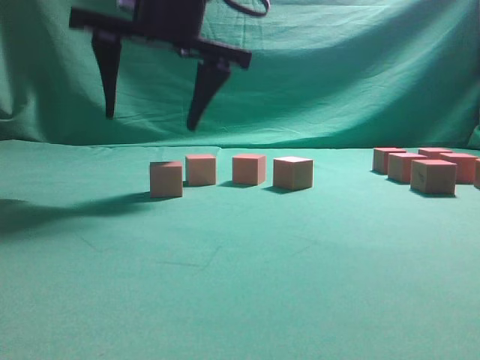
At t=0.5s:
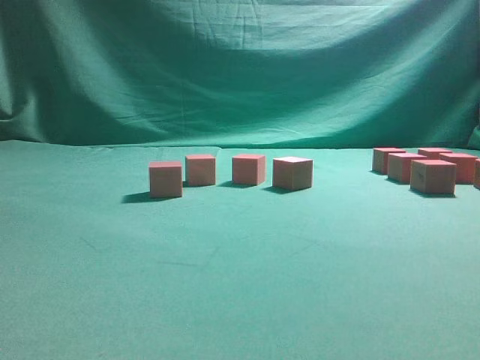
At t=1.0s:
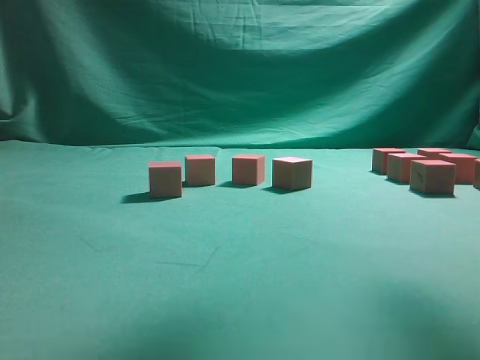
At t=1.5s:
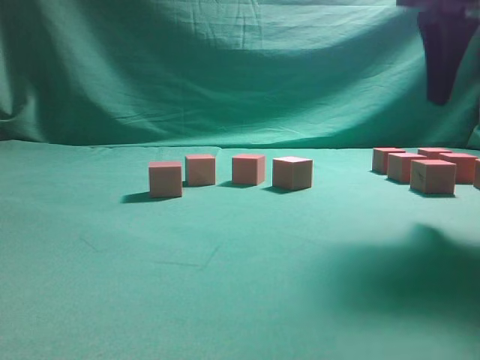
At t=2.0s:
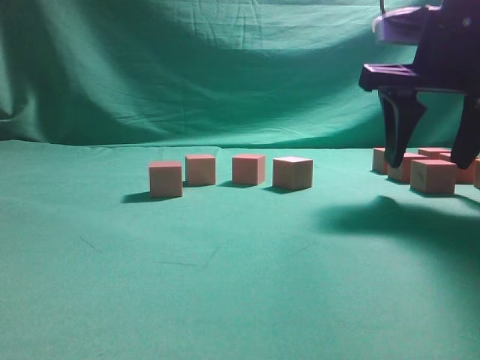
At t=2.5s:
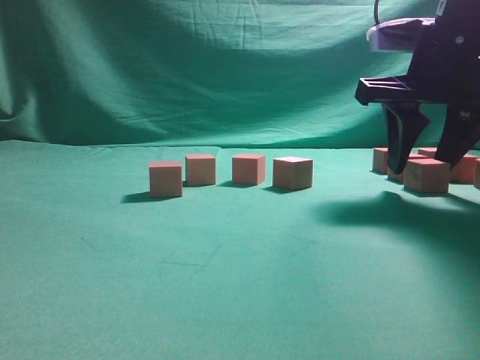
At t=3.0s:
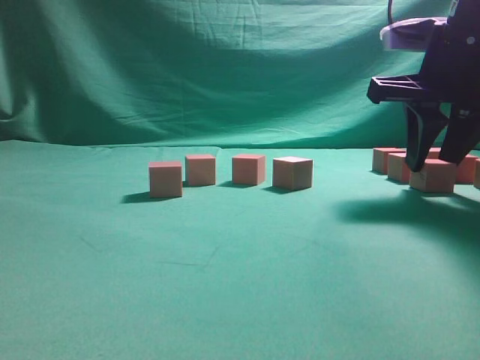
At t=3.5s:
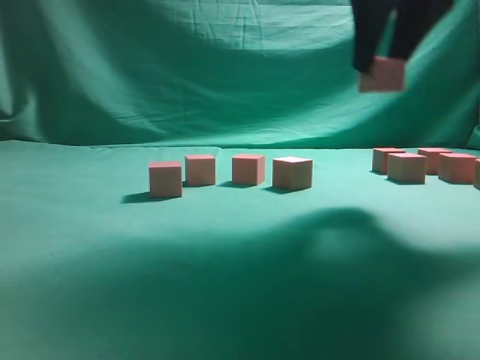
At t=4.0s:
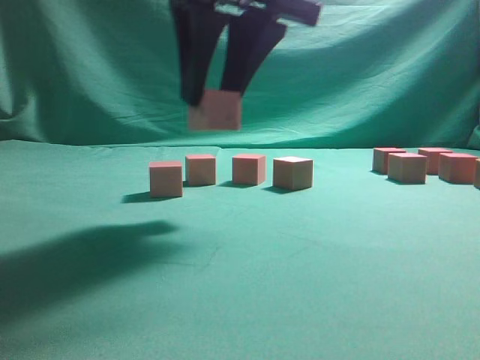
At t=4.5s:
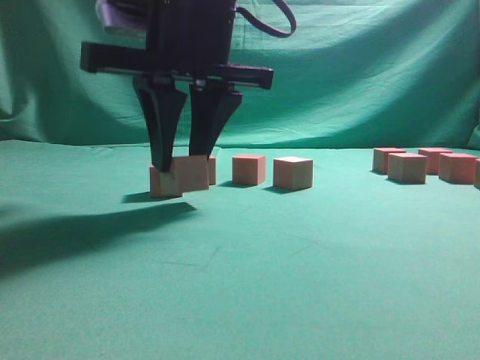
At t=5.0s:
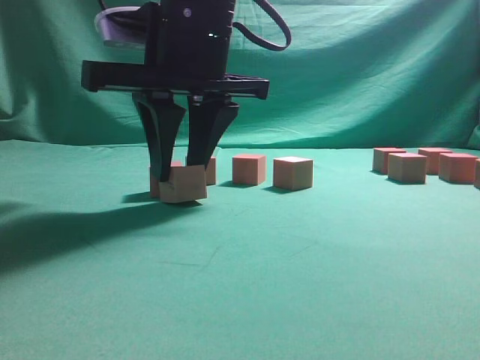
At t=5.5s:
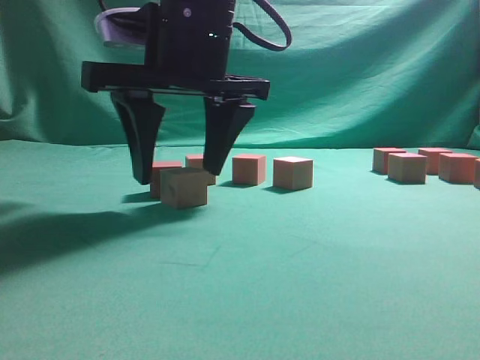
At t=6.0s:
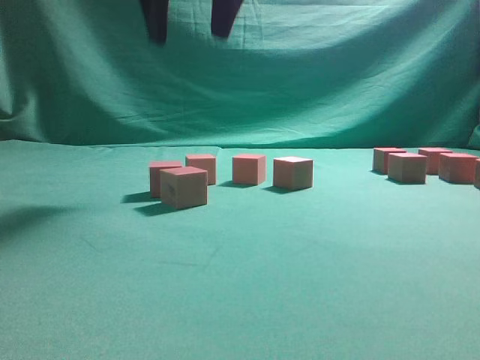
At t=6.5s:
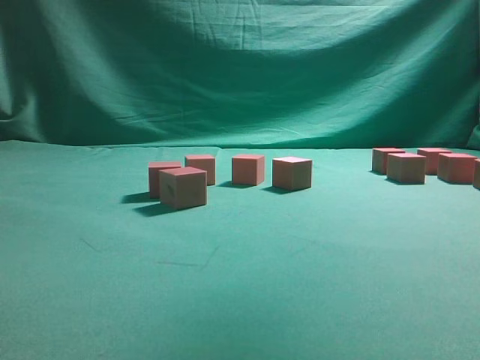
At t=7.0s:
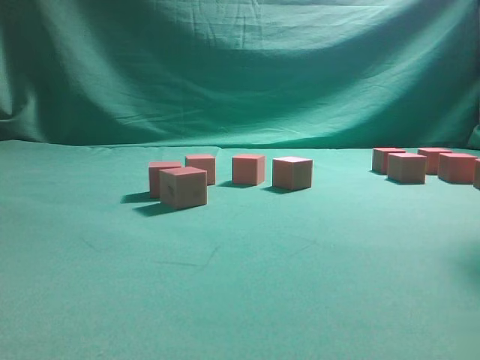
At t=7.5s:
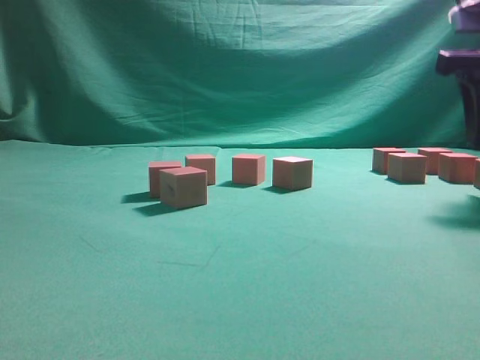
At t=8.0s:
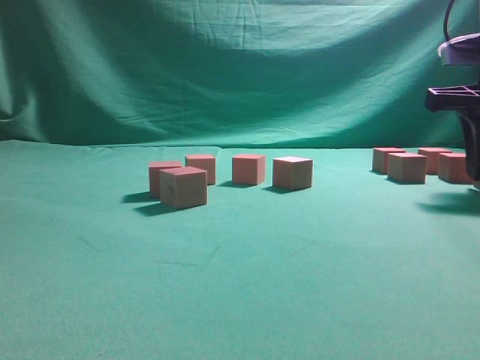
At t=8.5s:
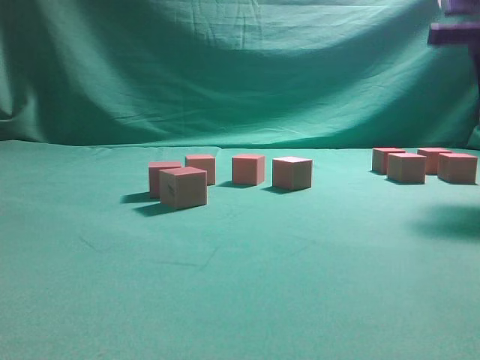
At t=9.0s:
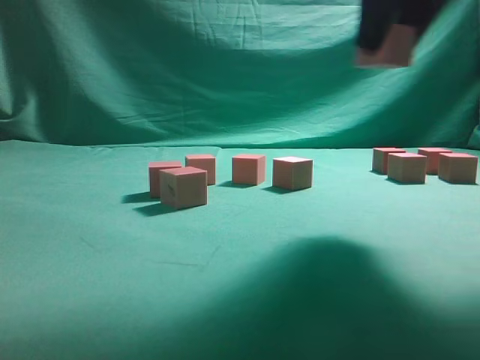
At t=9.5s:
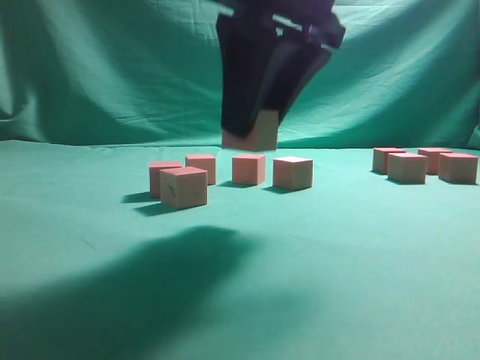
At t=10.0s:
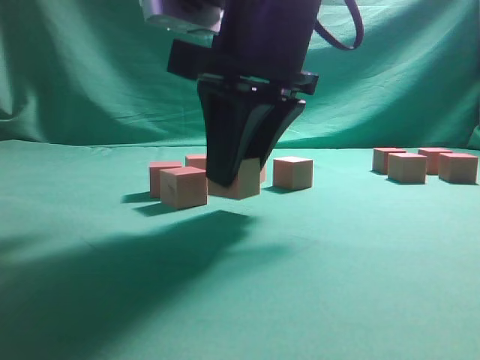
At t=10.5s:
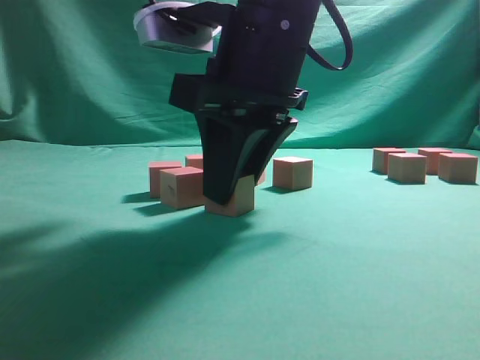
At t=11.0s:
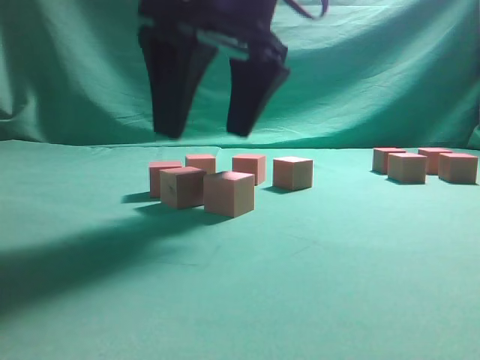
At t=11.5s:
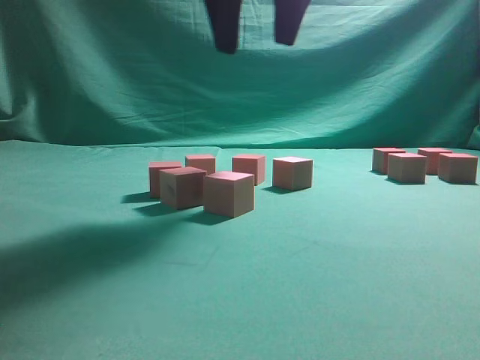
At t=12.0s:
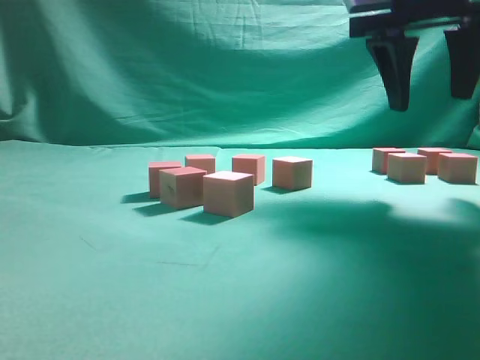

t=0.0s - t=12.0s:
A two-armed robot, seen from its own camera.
Task of the whole recording: pick up the multiple cubes in two columns one by one and place them in another position on the table.
Step, t=0.5s - t=3.0s: Pick up the block on the table.
Step, t=3.5s - t=5.5s: Place the block at the correct position to assemble the letter S.
Step, t=6.0s - t=8.0s: Pick up the block on the table.
Step, t=8.5s - t=11.0s: Place the block at the correct position to assemble the letter S.
t=0.0s - t=2.0s: The right gripper goes some 25 cm to the right.
t=2.0s - t=4.0s: The right gripper goes about 15 cm to the left, and closes.
t=4.0s - t=6.0s: The right gripper heads upward, covering about 5 cm, and opens up.
t=6.0s - t=8.0s: The right gripper travels to the right and downward by about 30 cm.
t=8.0s - t=10.0s: The right gripper shifts approximately 25 cm to the left and backward.
t=10.0s - t=12.0s: The right gripper goes some 20 cm to the right, forward and upward, and opens up.

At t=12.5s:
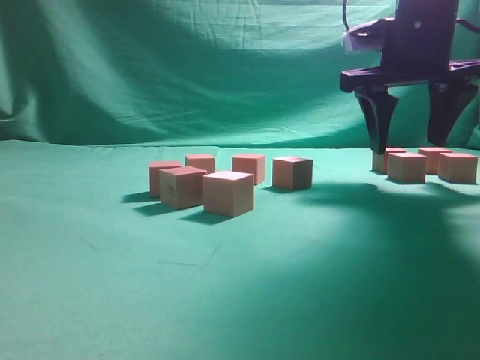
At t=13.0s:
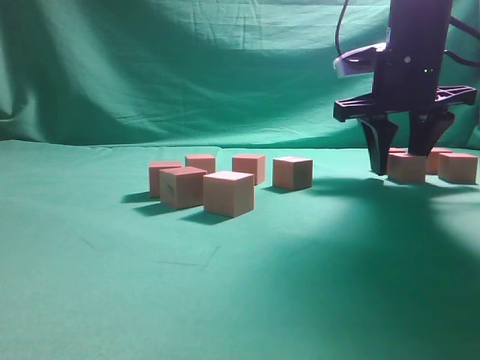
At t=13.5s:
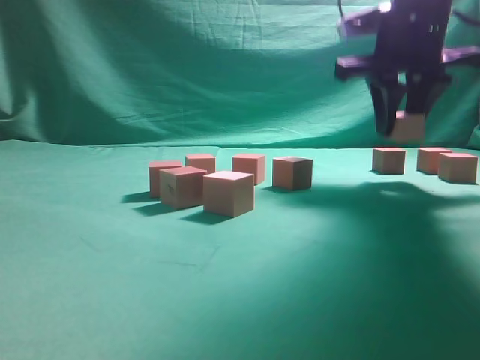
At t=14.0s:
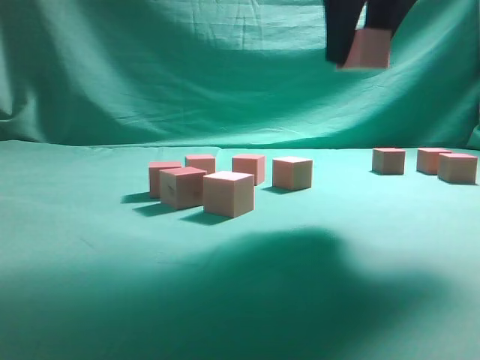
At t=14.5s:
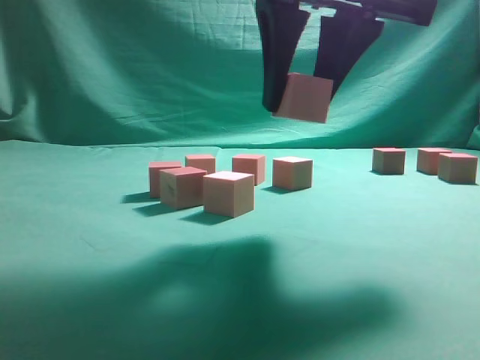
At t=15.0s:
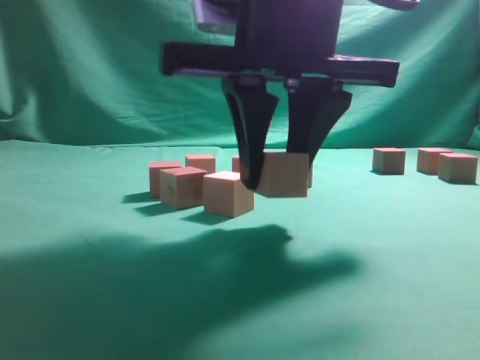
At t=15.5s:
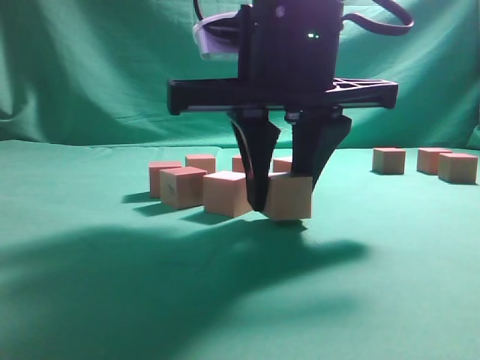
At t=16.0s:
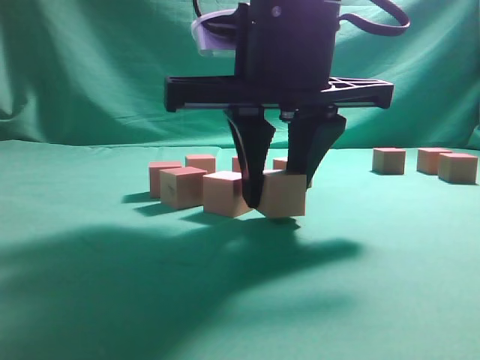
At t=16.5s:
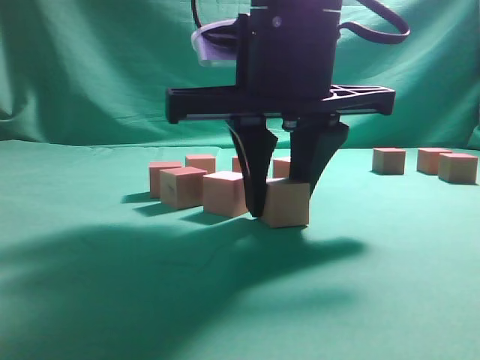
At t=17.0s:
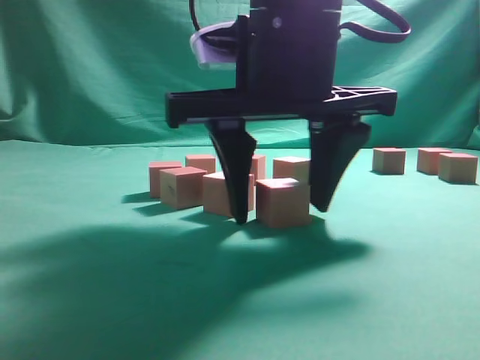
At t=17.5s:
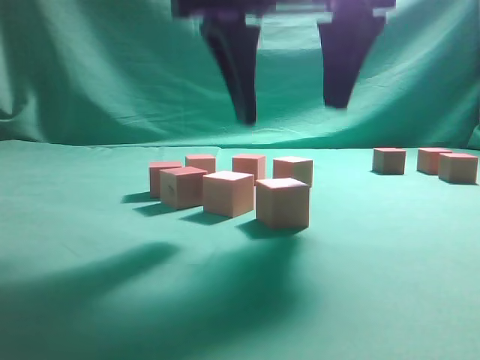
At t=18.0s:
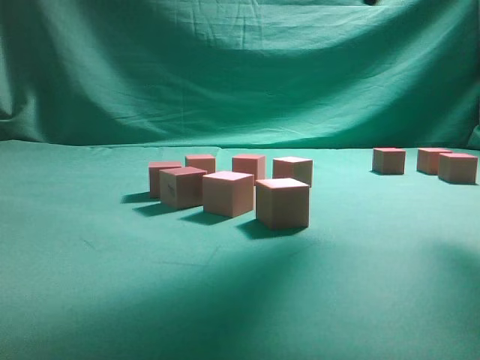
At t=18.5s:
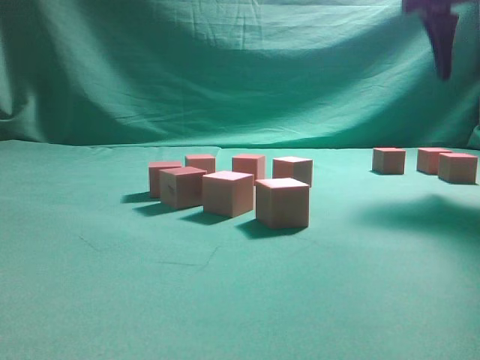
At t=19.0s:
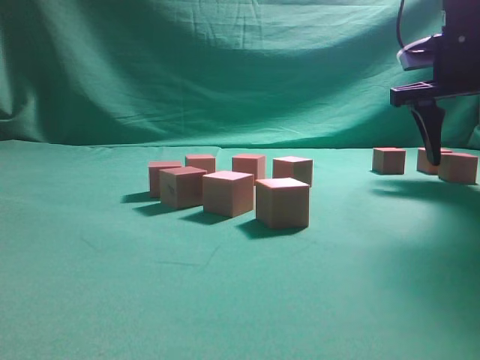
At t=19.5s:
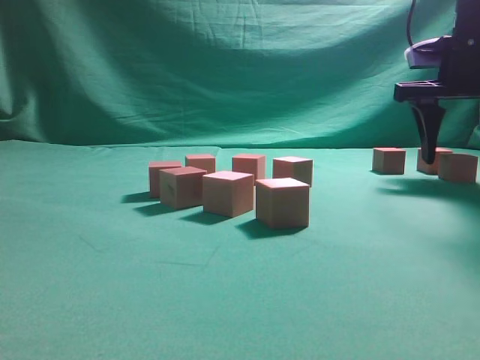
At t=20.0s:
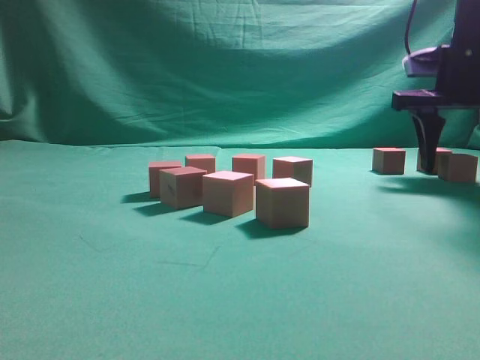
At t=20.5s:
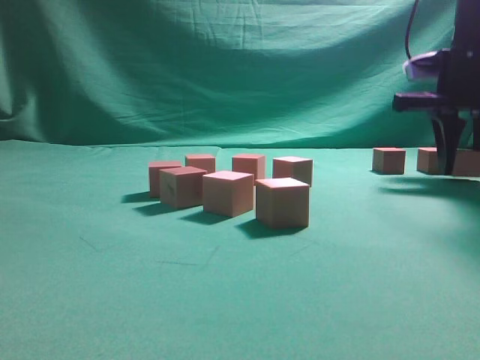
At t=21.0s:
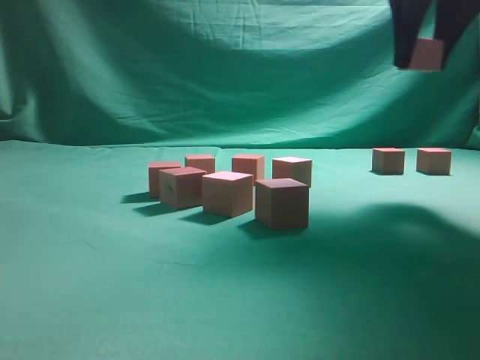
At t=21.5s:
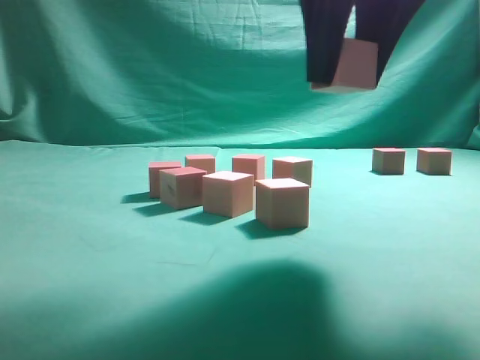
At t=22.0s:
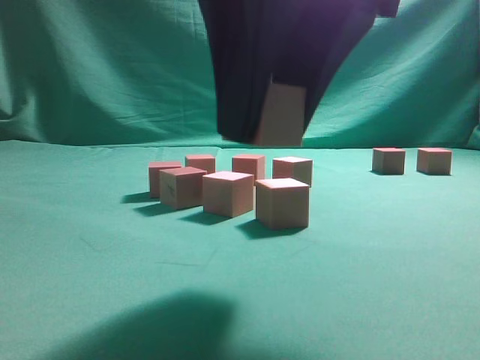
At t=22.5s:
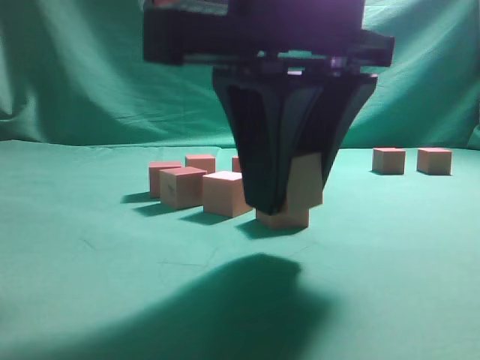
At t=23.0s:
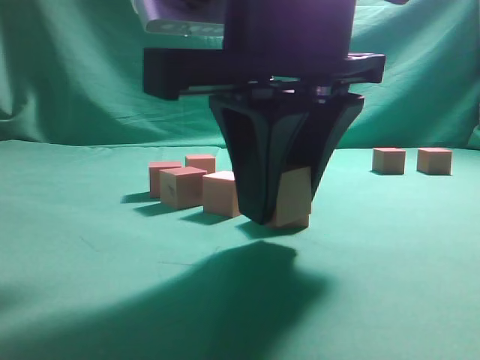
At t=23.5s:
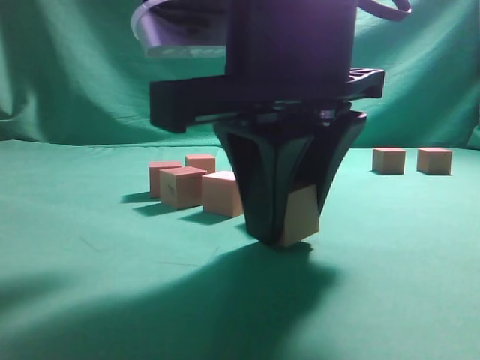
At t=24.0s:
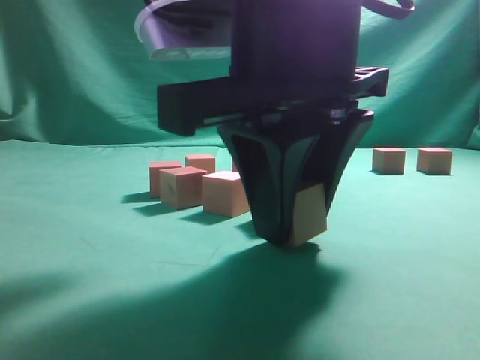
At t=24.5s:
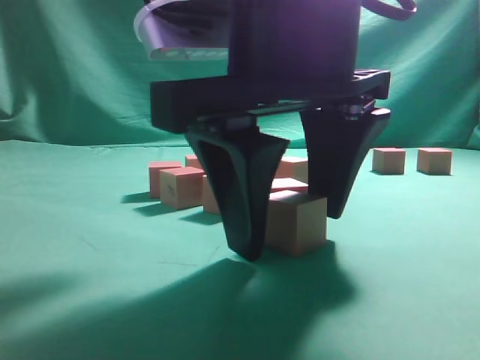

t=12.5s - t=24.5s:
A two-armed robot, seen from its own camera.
Task of the whole recording: pick up the multiple cubes in two columns one by one and place them in another position on the table.
Step, t=14.0s - t=17.5s: Place the block at the correct position to assemble the letter S.
Step, t=18.0s - t=20.5s: Pick up the block on the table.
t=12.5s - t=14.5s: The right gripper is displaced backward and to the left by about 20 cm, and closes up.
t=14.5s - t=16.5s: The right gripper is displaced downward by about 5 cm.
t=16.5s - t=18.5s: The right gripper shifts approximately 25 cm to the right, forward and upward, and opens up.
t=18.5s - t=20.5s: The right gripper heads downward, covering roughly 10 cm, and closes.
t=20.5s - t=22.5s: The right gripper heads backward and to the left, covering some 30 cm.
t=22.5s - t=24.5s: The right gripper opens up.

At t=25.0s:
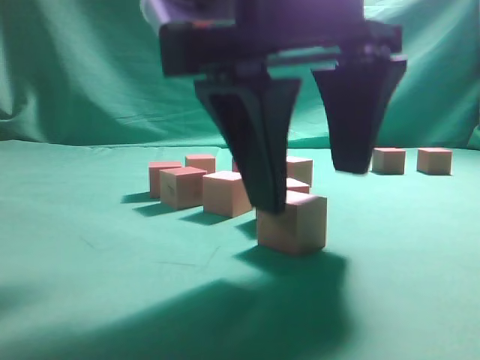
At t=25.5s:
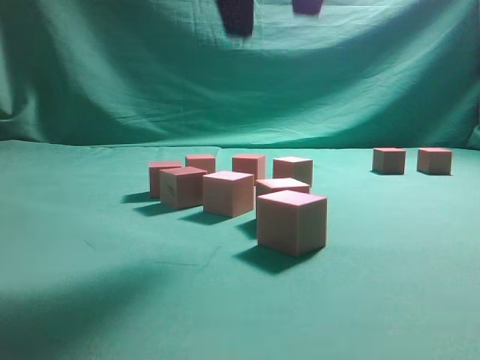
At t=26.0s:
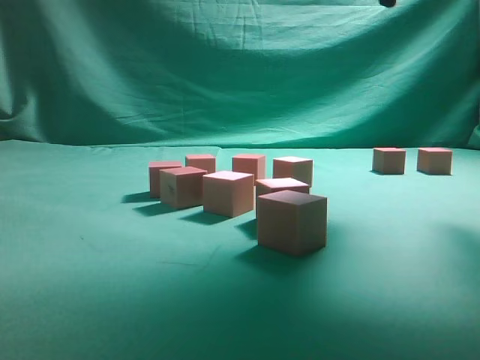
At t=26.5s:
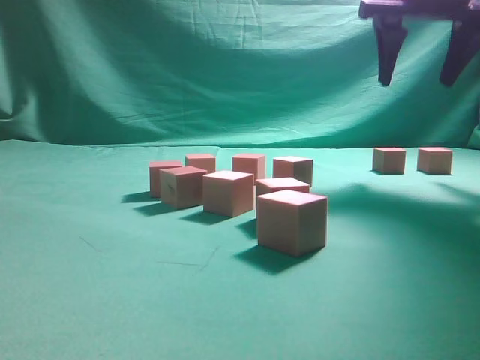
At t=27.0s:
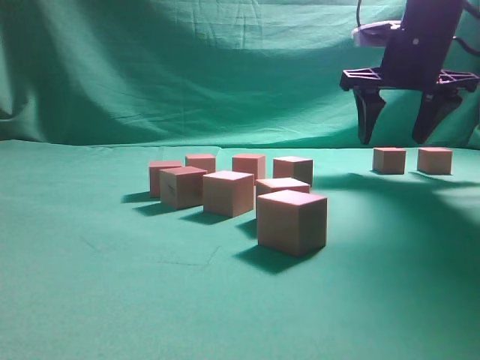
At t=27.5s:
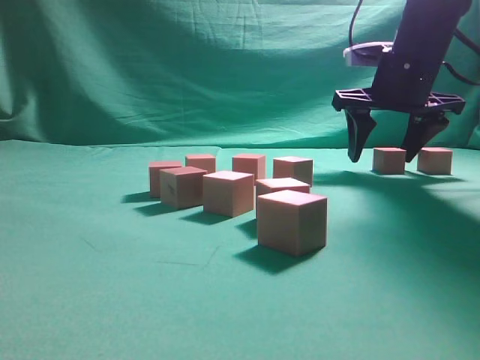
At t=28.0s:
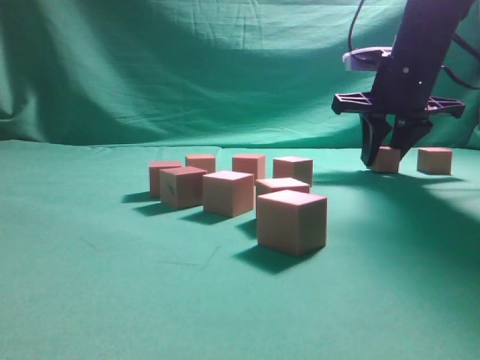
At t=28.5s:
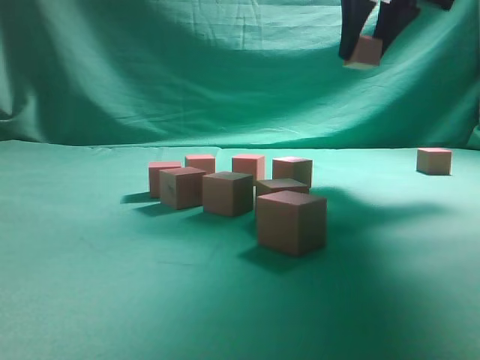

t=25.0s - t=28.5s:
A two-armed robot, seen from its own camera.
Task of the whole recording: pick up the multiple cubes in two columns one by one and place them in another position on the table.
Step, t=25.5s - t=28.0s: Pick up the block on the table.
t=25.0s - t=27.0s: The right gripper heads forward and to the right, covering approximately 30 cm.
t=27.0s - t=28.5s: The right gripper travels upward by about 10 cm, and closes its fingers.
